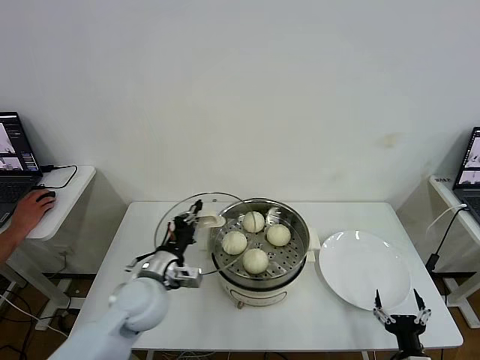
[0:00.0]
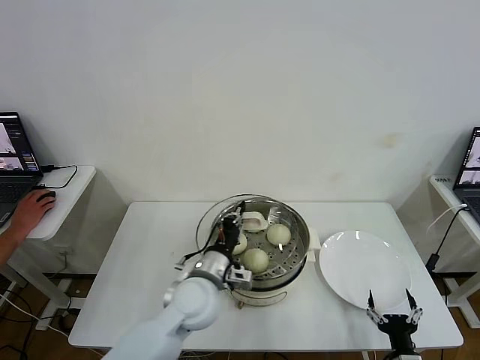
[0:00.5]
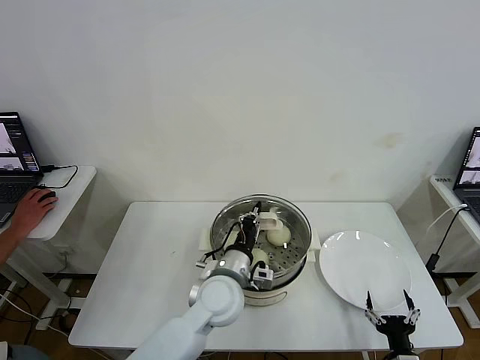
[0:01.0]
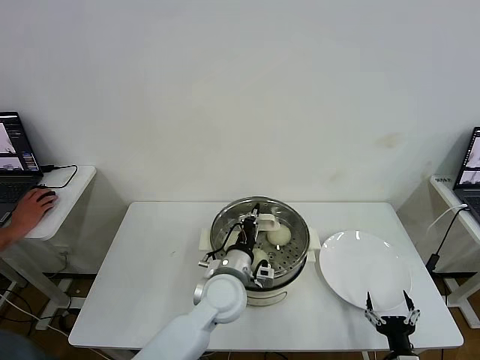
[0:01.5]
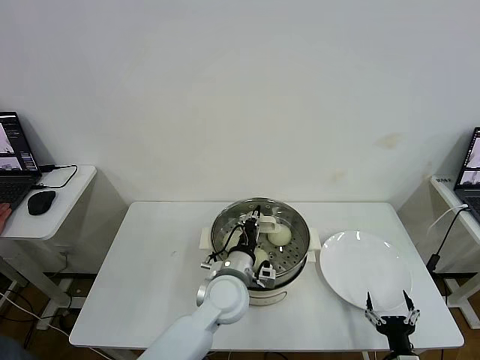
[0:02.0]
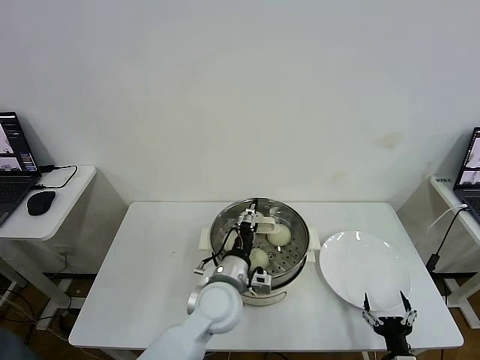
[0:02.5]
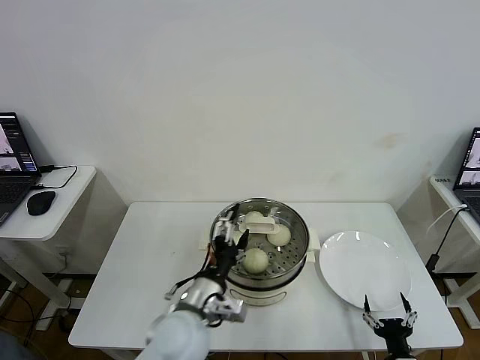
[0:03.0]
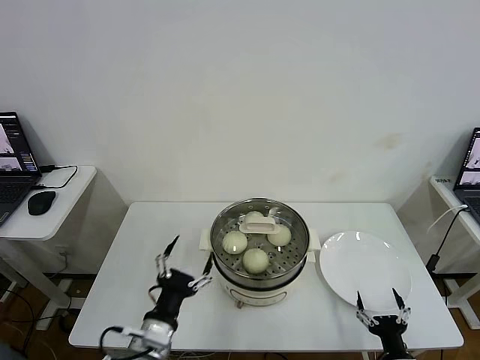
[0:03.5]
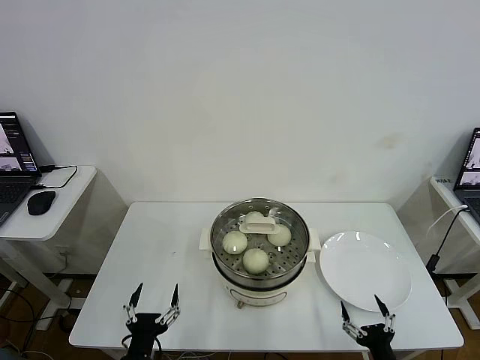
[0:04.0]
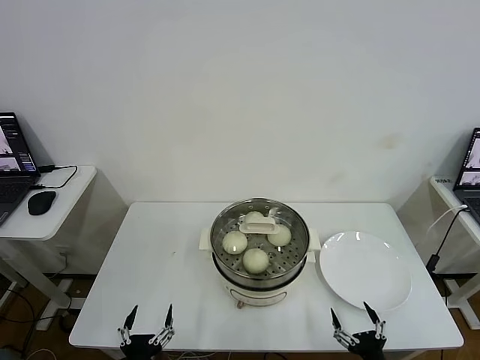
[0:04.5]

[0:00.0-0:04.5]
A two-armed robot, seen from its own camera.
Task of the whole recording: take steamed baozi put them in steamer then cover it.
Step, 0:00.0 to 0:02.5: Place the pot lid on the steamer with left gripper.
0:00.0 to 0:02.0: The left gripper moves to the right, some 15 cm.
0:02.0 to 0:04.5: The left gripper heads backward and to the left, covering some 30 cm, and opens. The right gripper moves approximately 5 cm.
